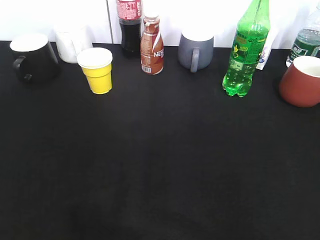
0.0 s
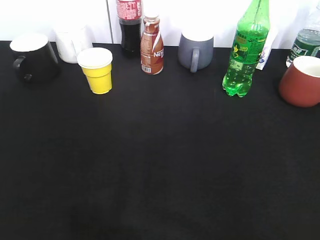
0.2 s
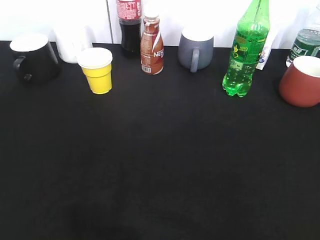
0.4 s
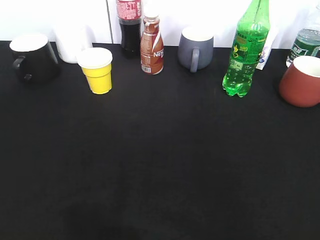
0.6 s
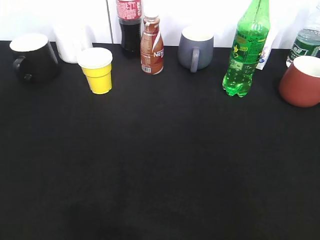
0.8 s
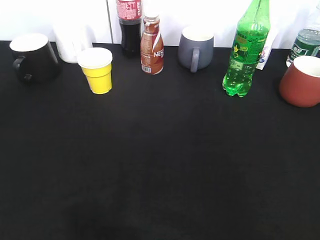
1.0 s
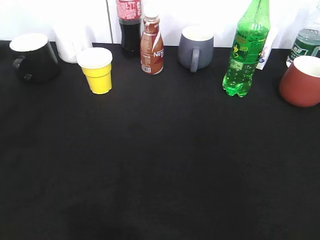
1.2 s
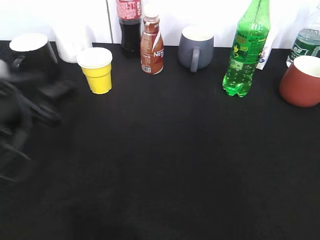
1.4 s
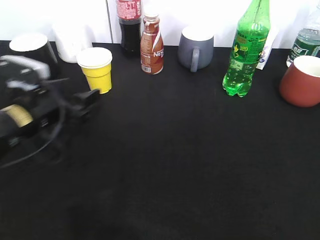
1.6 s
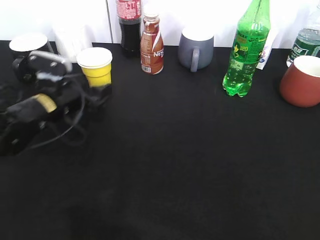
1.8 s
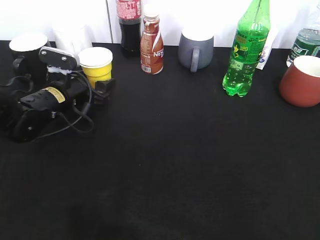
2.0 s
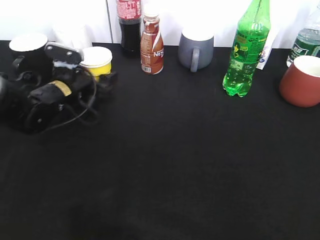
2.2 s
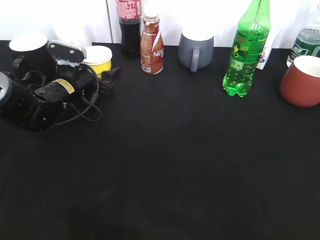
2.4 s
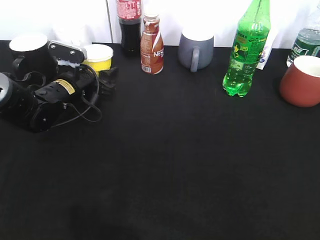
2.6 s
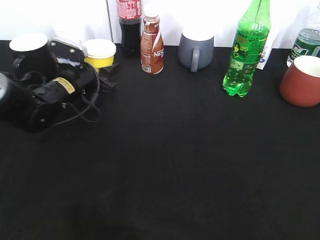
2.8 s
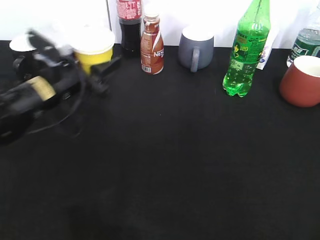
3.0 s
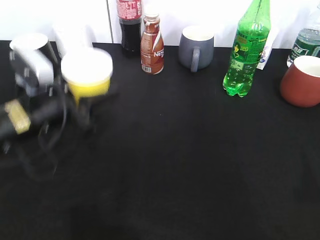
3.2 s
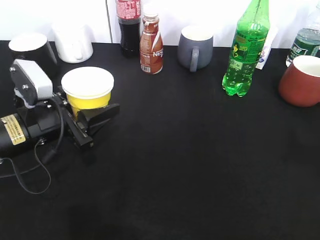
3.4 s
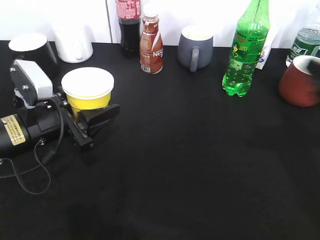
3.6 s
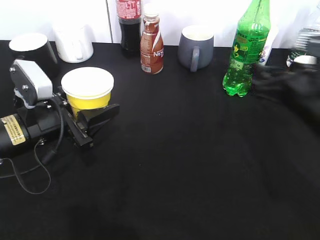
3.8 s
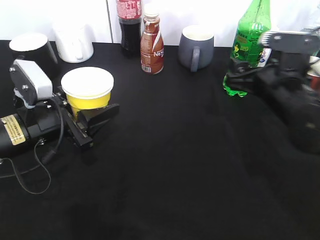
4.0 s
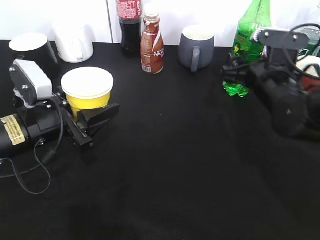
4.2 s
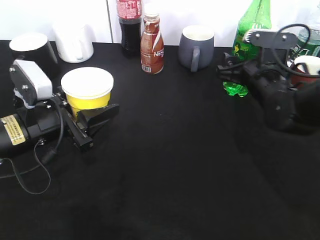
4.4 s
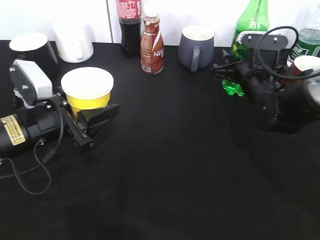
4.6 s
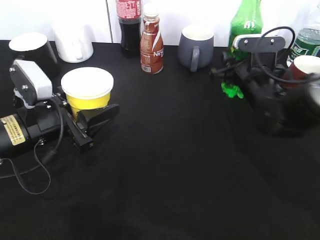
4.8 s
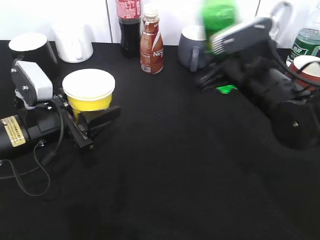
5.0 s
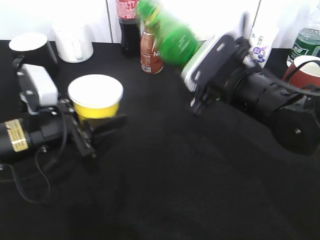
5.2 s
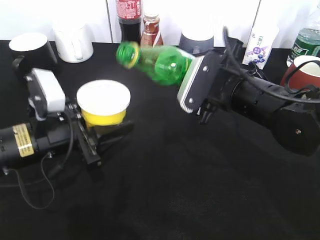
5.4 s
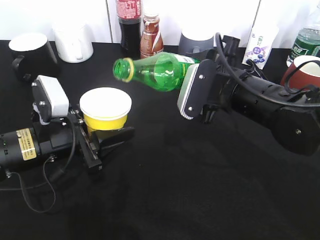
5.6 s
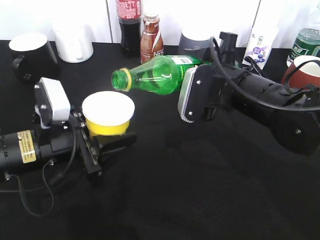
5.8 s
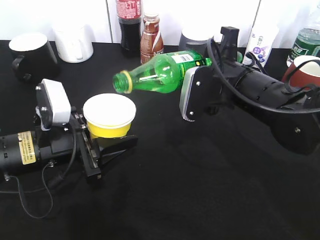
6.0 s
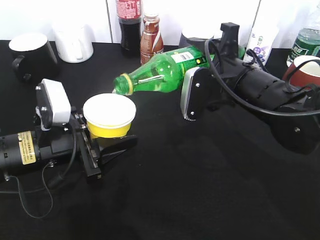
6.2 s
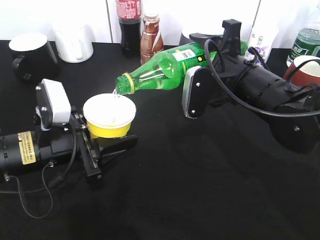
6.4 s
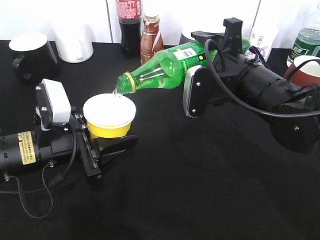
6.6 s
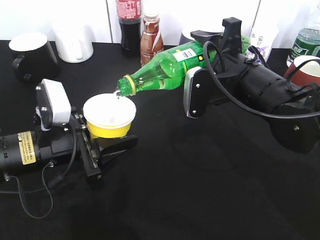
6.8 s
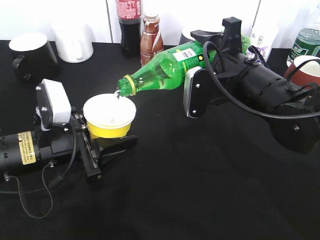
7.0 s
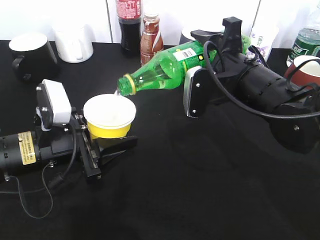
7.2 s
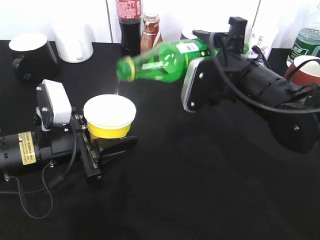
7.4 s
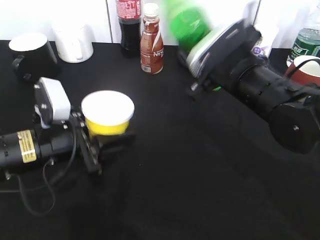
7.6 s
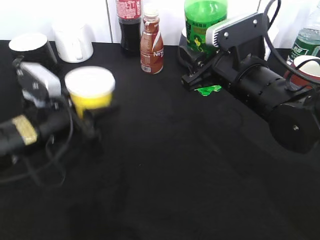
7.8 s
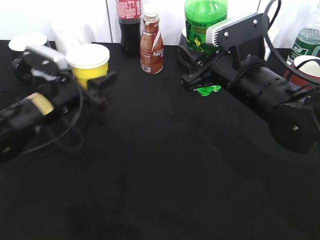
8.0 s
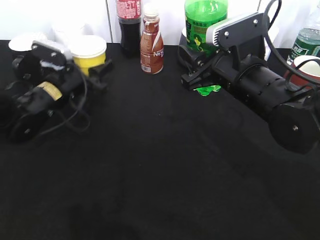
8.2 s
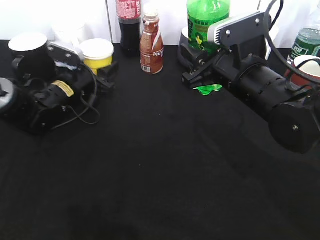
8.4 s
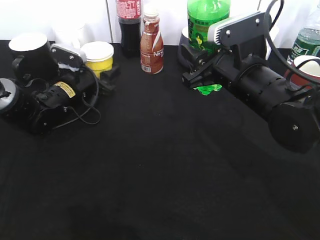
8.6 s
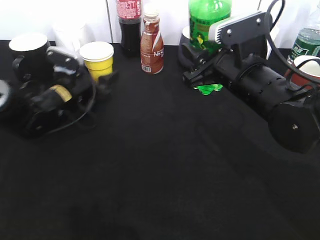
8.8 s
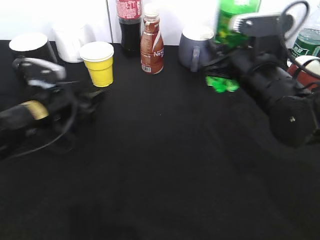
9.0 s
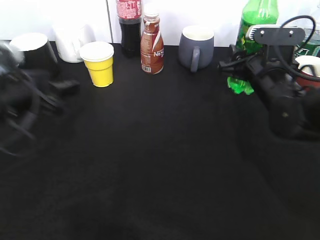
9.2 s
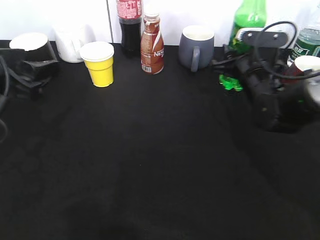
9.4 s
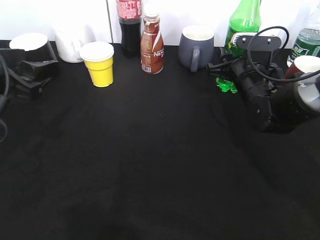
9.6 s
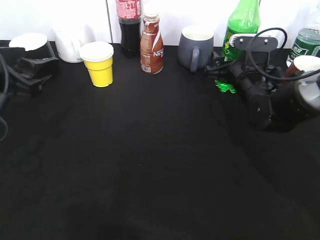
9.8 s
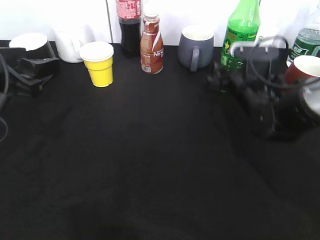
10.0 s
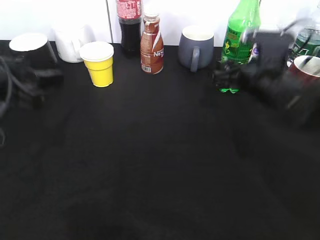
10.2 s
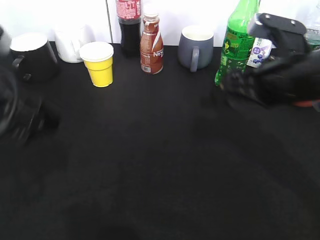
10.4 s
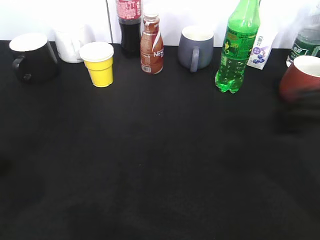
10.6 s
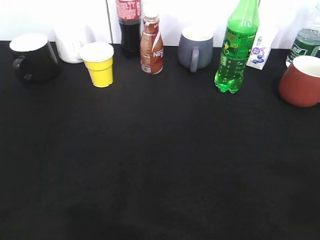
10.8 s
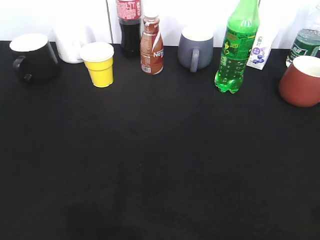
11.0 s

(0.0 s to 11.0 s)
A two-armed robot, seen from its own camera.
Step, 0.0 s - 2.6 s: Grasp the yellow paper cup with left gripper.
Step, 2.8 s - 3.4 s: Lift the yellow paper cup with left gripper.
Step, 3.6 s - 4.6 s: Grasp the bottle with sprite with right gripper.
Step, 4.8 s - 7.4 s: Pour the sprite from bottle to cup with right gripper.
Step, 7.6 s - 10.0 s: Place the sprite bottle on the table with right gripper.
0.0 s - 1.6 s: The left gripper moves forward and downward, some 35 cm.
1.6 s - 3.2 s: The left gripper reaches roughly 10 cm forward, then returns, and closes.
3.2 s - 4.8 s: The right gripper moves forward, downward and to the left, about 35 cm, and closes its fingers.
4.8 s - 6.2 s: The right gripper shifts roughly 10 cm backward, upward and to the left.
7.8 s - 9.4 s: The right gripper shifts about 10 cm forward, downward and to the right. Meanwhile the left gripper is displaced upward and to the left by approximately 10 cm, goes forward and returns, approximately 15 cm each way, and opens.
9.4 s - 11.0 s: The right gripper is displaced backward and upward by about 40 cm, and opens its fingers; the left gripper shifts roughly 20 cm backward.

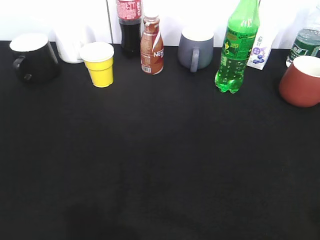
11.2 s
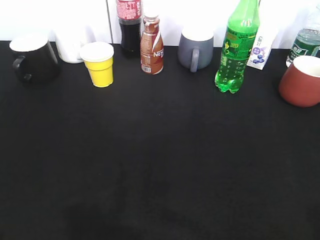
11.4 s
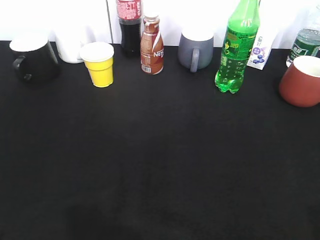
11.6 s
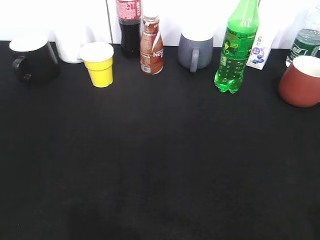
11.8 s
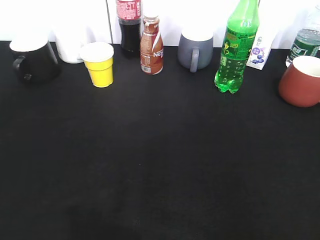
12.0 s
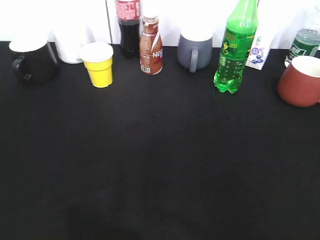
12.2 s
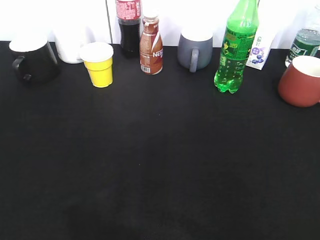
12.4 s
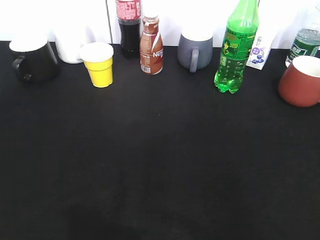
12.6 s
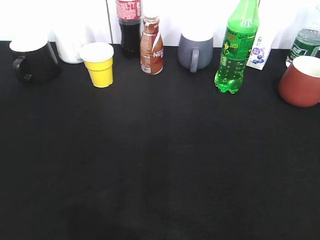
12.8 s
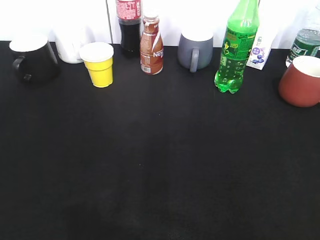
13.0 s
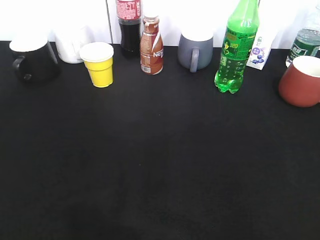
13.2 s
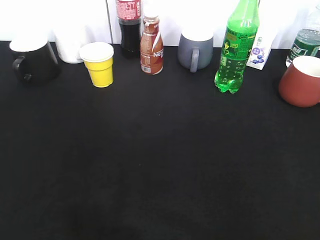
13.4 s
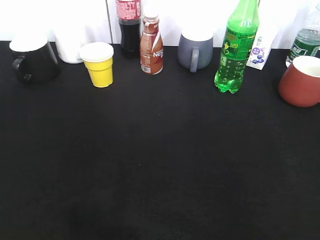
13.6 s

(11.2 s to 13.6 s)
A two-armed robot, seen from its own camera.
12.4 s - 13.6 s: The grippers move only a little.

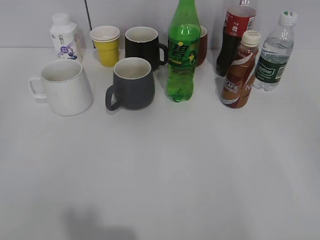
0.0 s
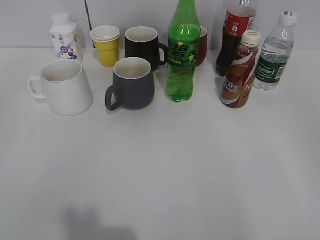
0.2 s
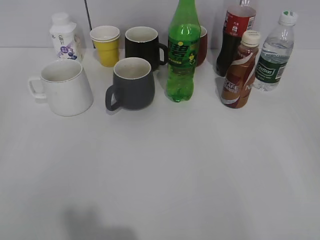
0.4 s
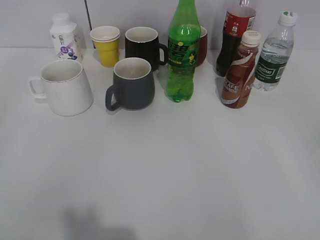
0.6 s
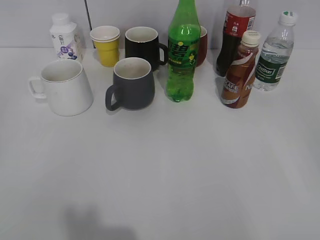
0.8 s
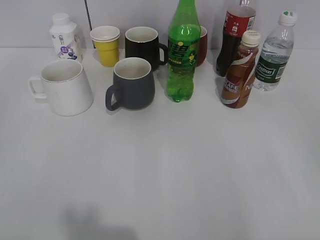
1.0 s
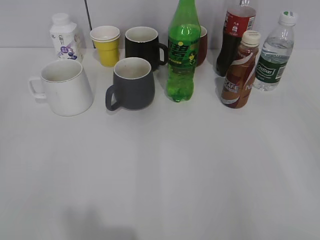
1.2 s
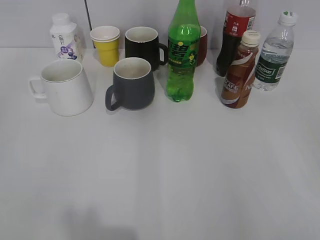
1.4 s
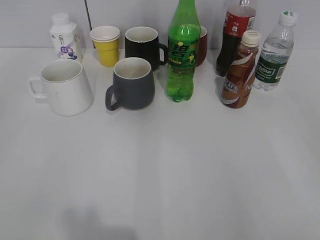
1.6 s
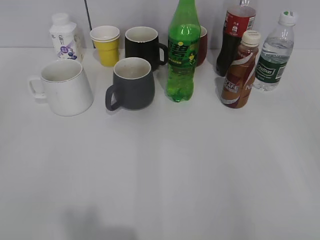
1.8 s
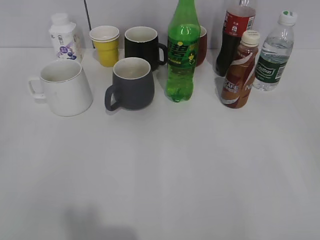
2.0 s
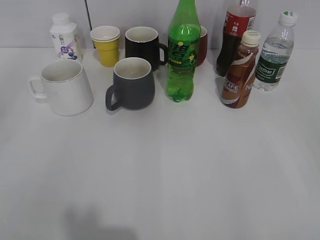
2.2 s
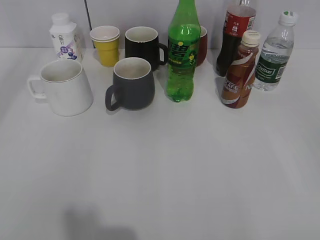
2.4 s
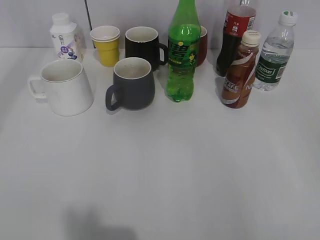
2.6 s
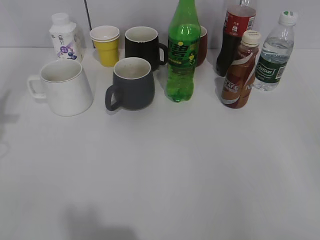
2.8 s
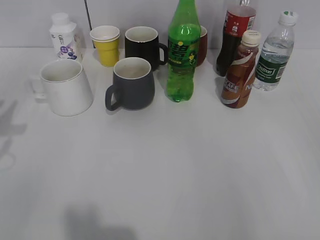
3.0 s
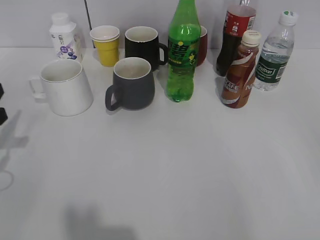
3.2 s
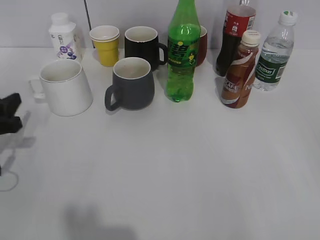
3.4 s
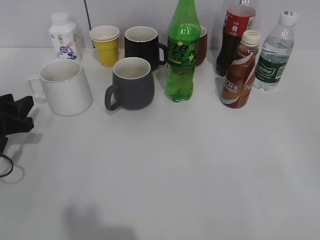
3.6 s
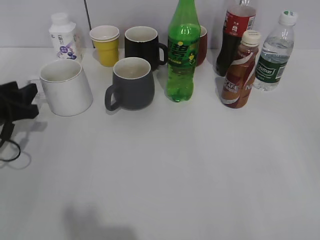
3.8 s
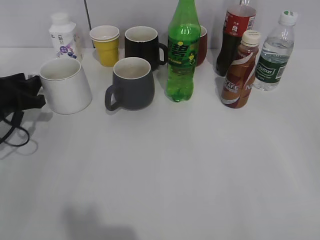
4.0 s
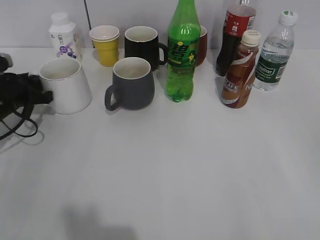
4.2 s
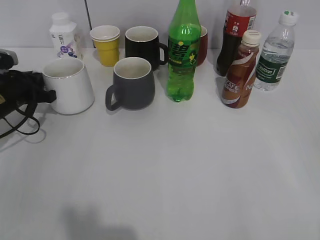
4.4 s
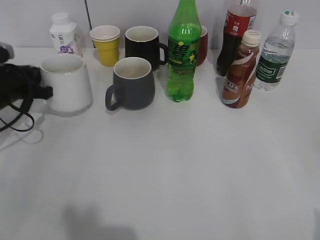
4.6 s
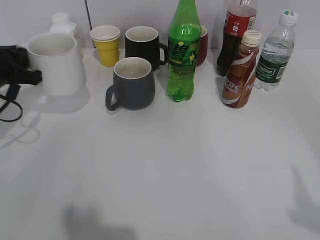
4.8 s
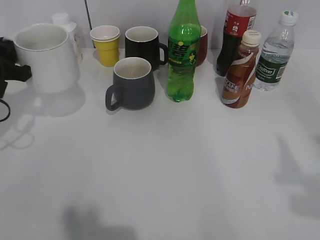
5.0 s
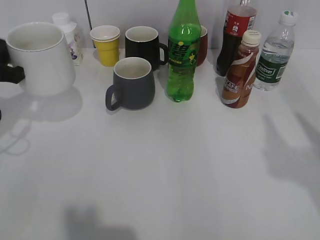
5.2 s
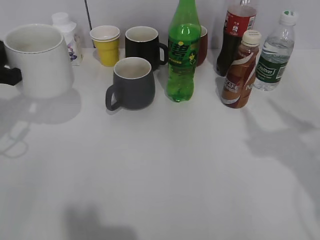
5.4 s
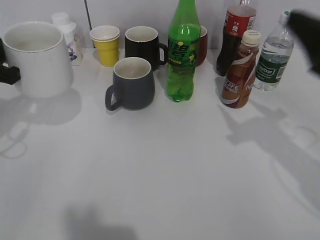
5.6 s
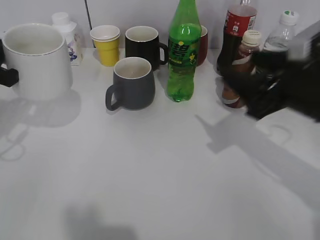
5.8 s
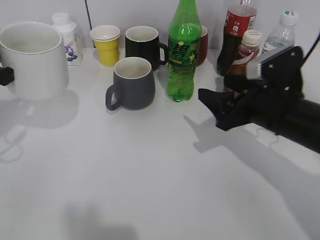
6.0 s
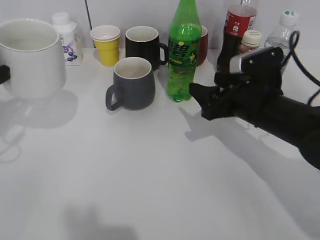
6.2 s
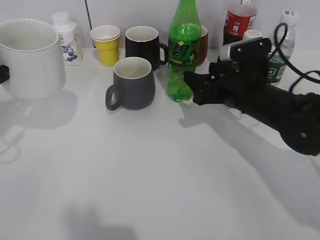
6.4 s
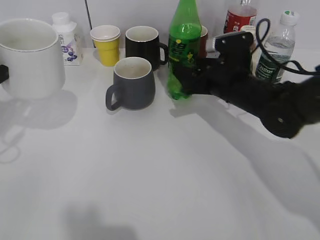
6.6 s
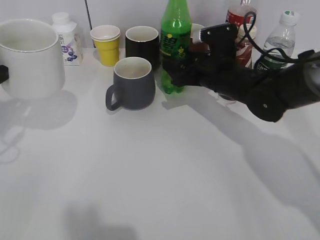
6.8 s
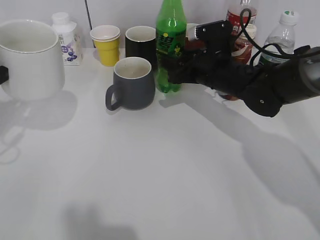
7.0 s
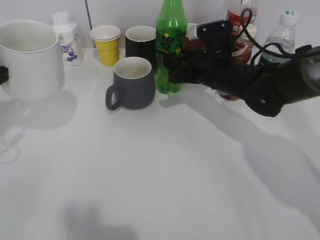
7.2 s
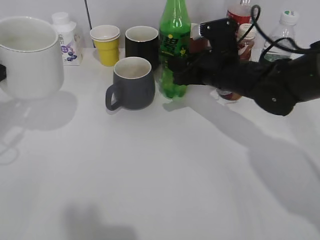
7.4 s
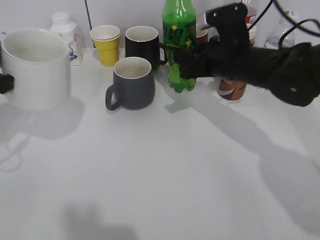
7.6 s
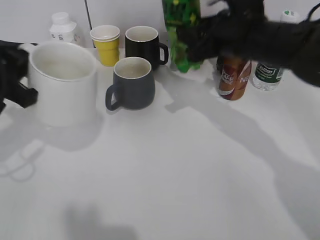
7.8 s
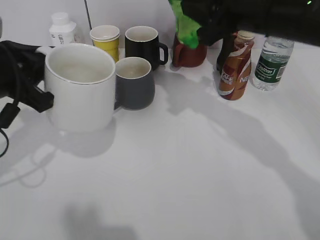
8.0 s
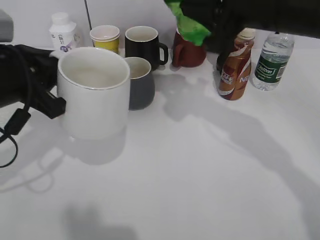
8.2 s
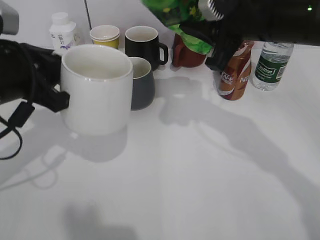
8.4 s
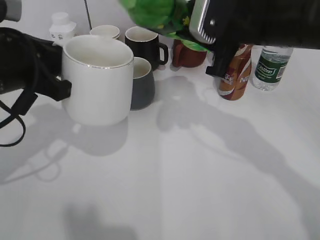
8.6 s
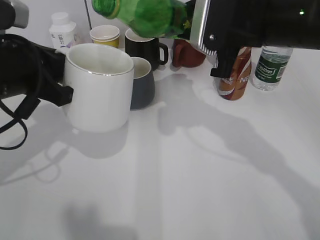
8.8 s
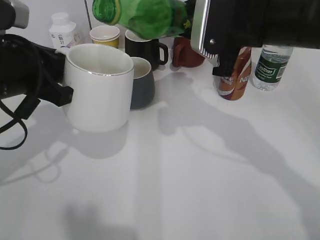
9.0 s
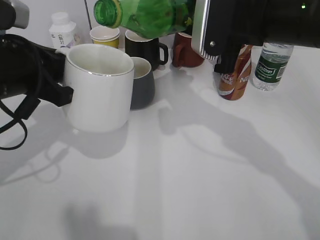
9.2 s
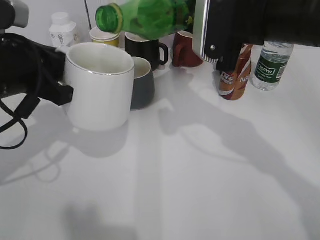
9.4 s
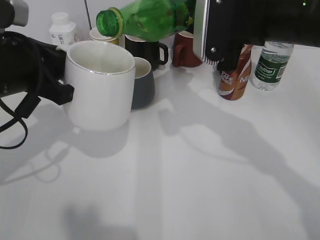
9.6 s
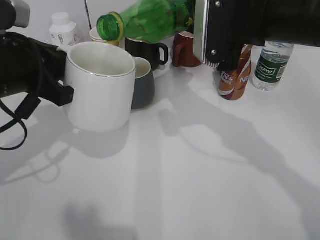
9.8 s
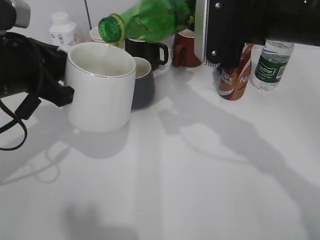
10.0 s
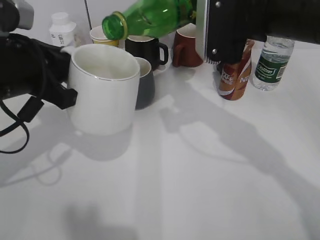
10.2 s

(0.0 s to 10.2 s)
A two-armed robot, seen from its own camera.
Step, 2.0 s - 4.2 s: Grasp the white cup with left gripper.
Step, 4.6 s - 5.4 s: Lift the white cup with left gripper.
Step, 5.6 s - 7.2 s: Grasp the bottle with sprite with right gripper.
3.0 s - 4.4 s: The left gripper is displaced forward and downward by roughly 15 cm, and closes.
4.4 s - 5.8 s: The left gripper heads upward and backward, covering roughly 15 cm. The right gripper is displaced forward and to the left by some 25 cm.
5.8 s - 7.2 s: The right gripper is displaced forward, to the left and downward by about 20 cm, and closes its fingers.
7.2 s - 8.8 s: The left gripper heads to the right, covering some 10 cm. Meanwhile the right gripper moves upward and backward, about 15 cm.
